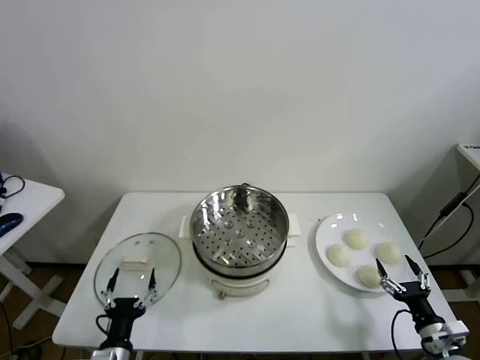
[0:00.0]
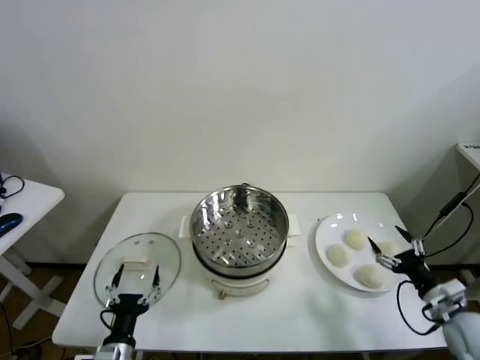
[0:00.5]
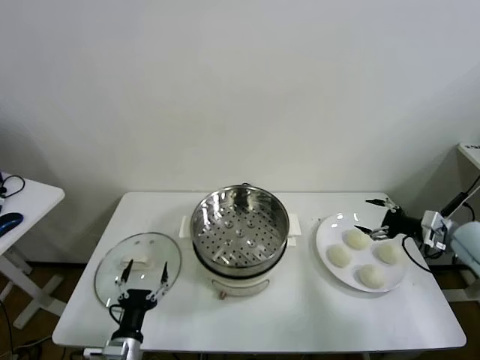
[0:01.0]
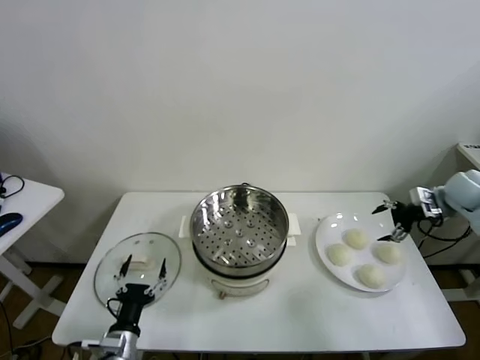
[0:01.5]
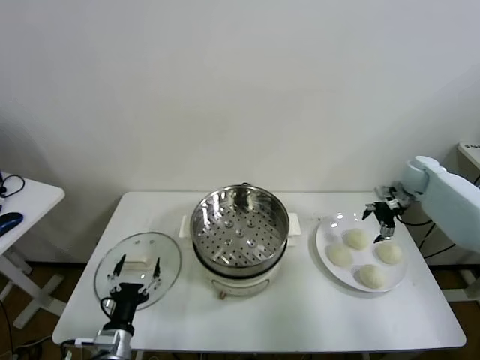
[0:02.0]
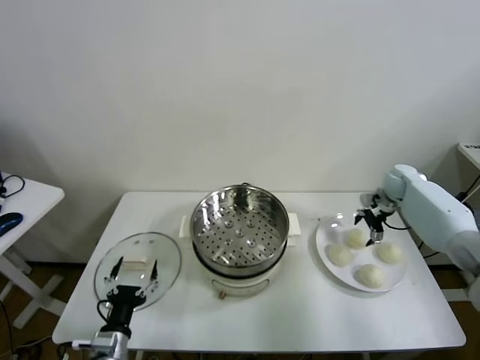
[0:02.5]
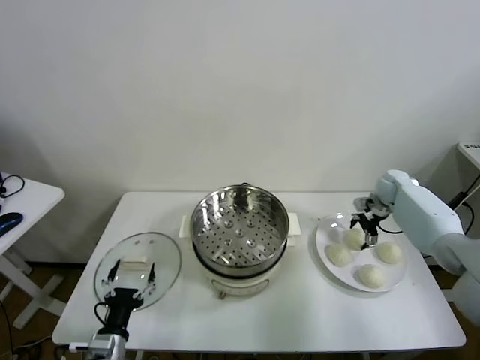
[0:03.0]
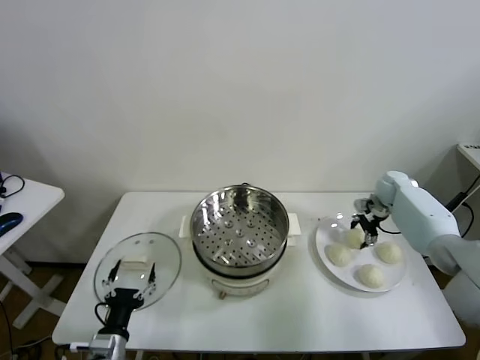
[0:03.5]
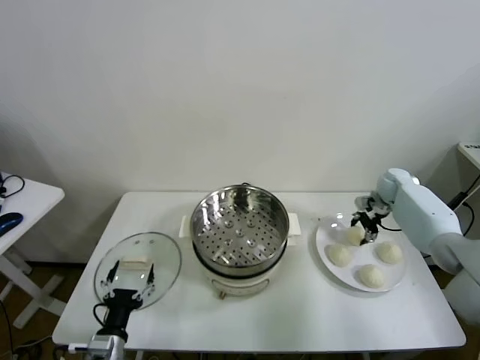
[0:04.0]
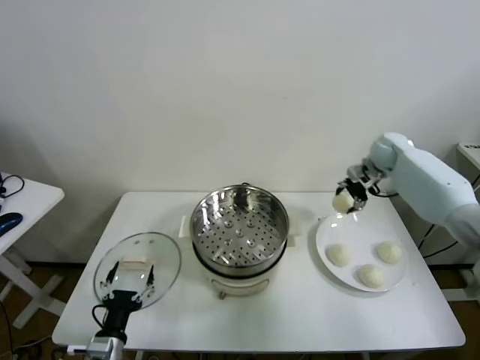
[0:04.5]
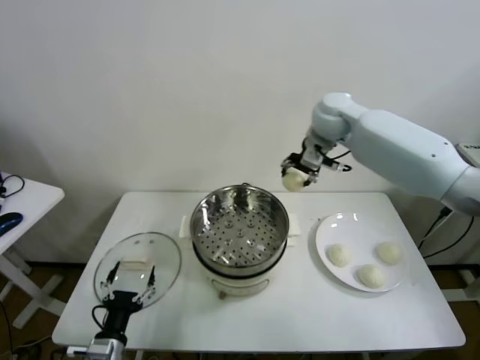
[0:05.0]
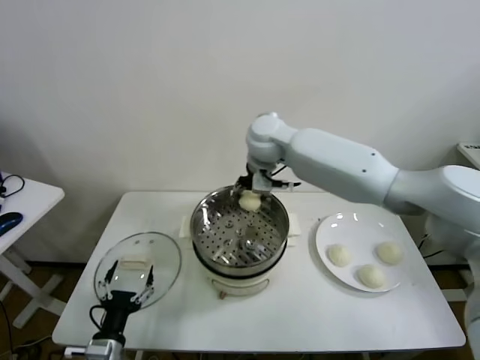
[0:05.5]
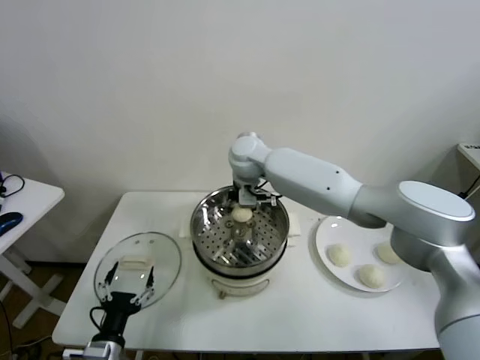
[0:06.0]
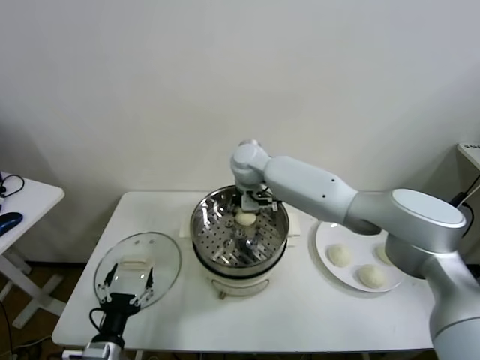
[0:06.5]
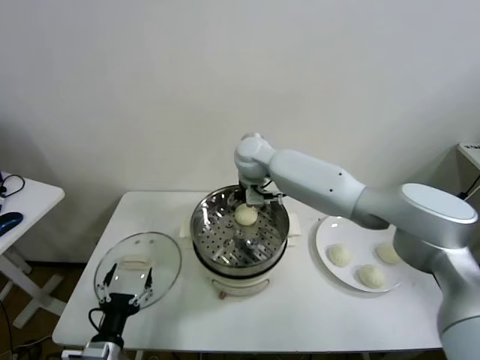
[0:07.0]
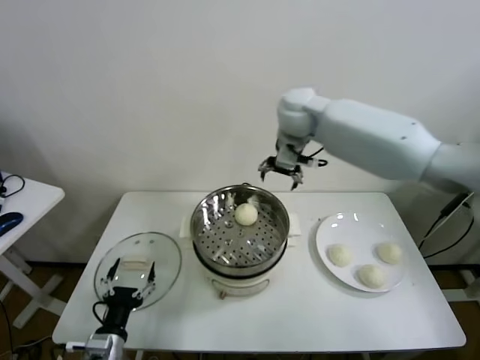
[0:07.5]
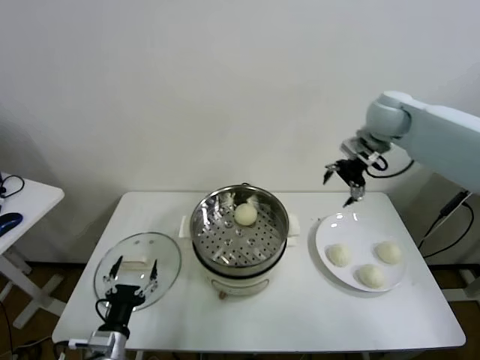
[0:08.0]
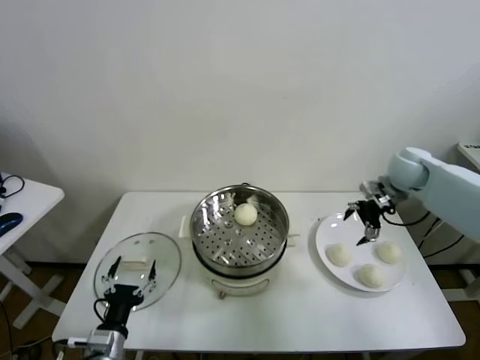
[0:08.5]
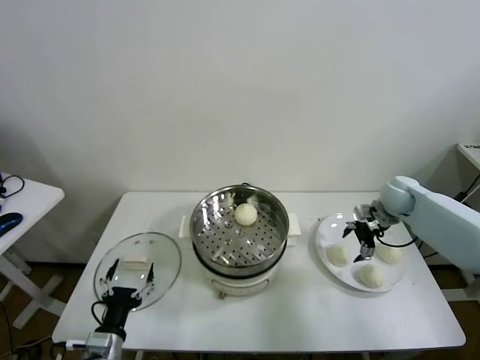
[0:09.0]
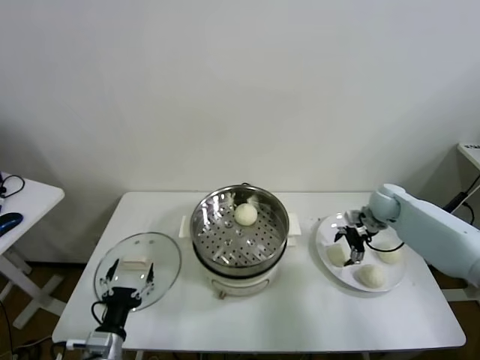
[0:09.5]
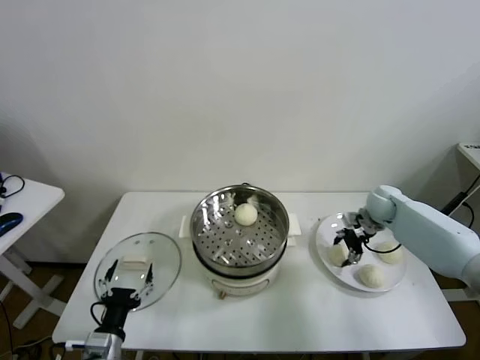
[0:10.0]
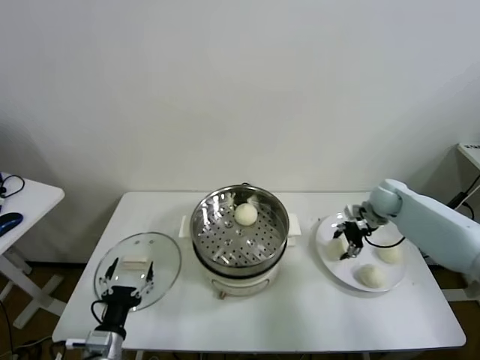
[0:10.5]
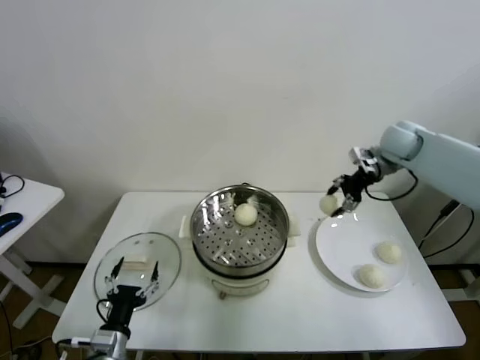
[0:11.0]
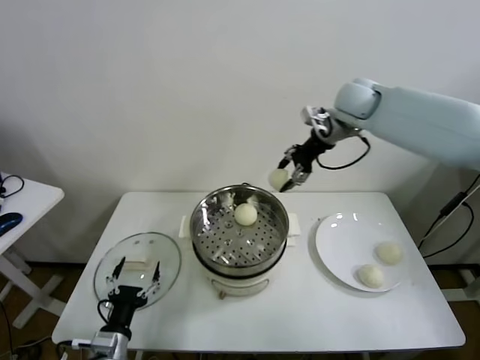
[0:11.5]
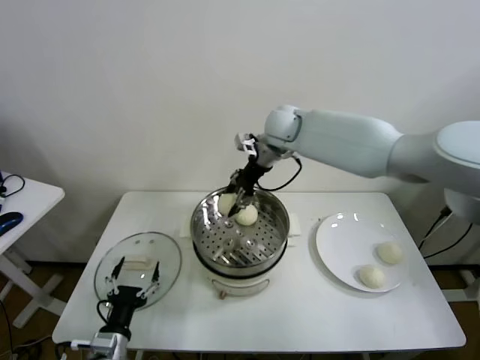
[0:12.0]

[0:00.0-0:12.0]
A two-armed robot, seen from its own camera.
Task of the whole recording: take steamed baozi put them in steamer.
Step, 0.0 to 3.0 s: Grasp the baozi in the plate with right gripper.
Step, 3.5 to 6.5 s: Place the baozi on the steamer with right gripper.
Step, 7.0 to 9.5 s: Grasp the baozi in the plate with right gripper.
2.0 to 4.0 s: The right gripper heads downward, covering approximately 5 cm, and closes its fingers.
4.0 to 6.0 s: The right gripper moves to the left, approximately 40 cm.
6.0 to 8.0 s: The right gripper shifts about 30 cm to the right, and opens up.
8.0 to 10.0 s: The right gripper shifts about 25 cm downward, and closes up.
10.0 to 12.0 s: The right gripper is displaced to the left and upward by roughly 35 cm.

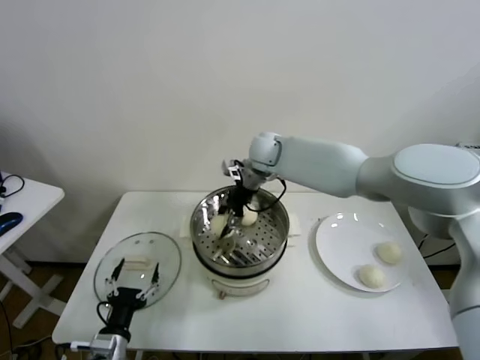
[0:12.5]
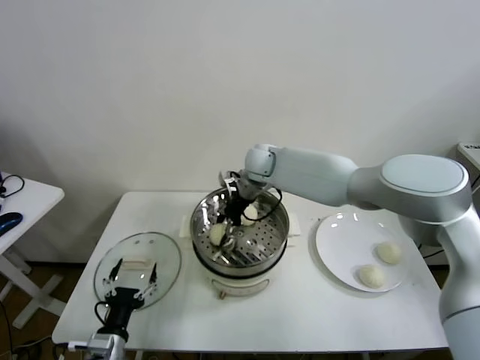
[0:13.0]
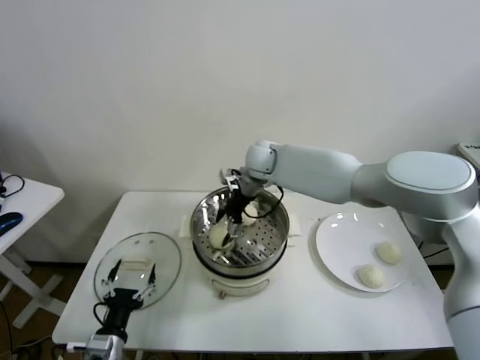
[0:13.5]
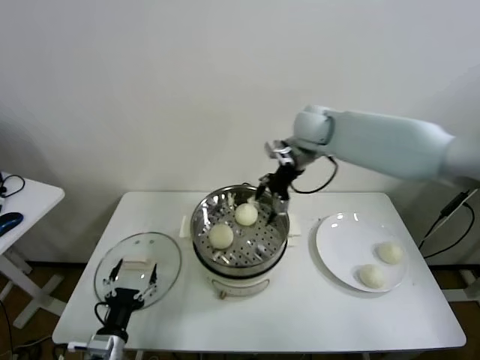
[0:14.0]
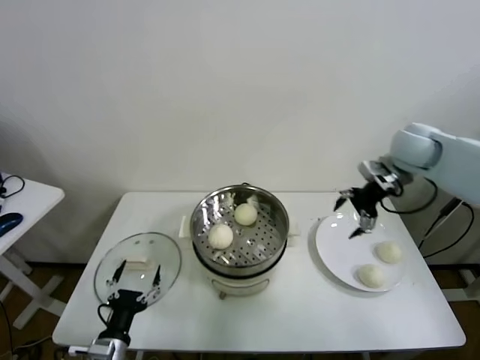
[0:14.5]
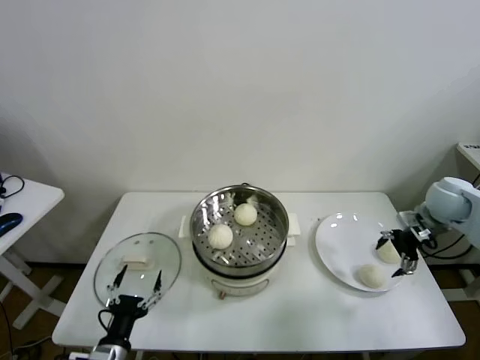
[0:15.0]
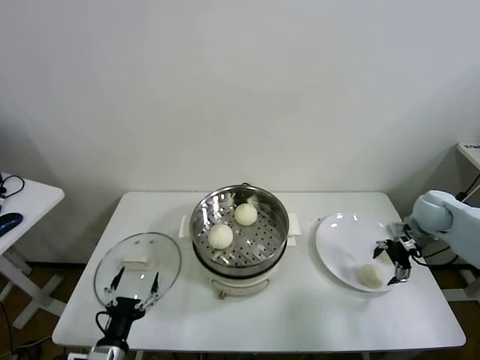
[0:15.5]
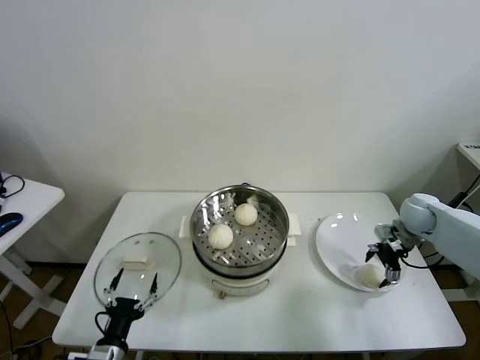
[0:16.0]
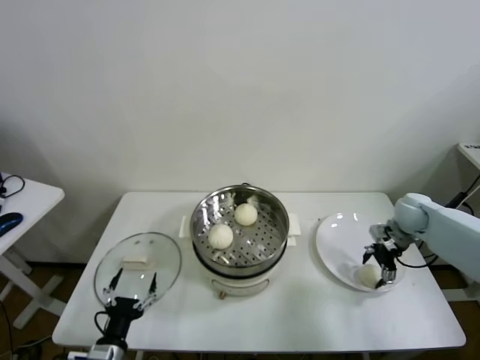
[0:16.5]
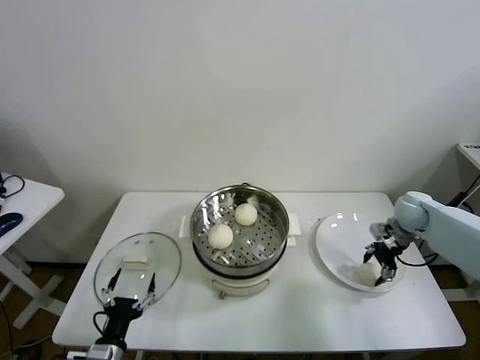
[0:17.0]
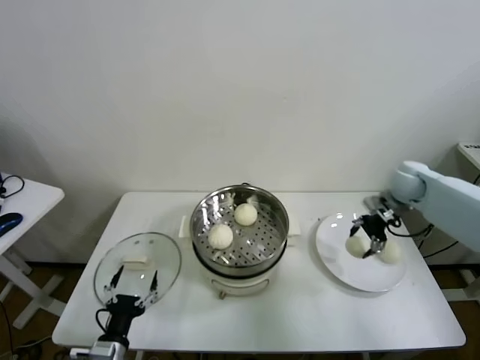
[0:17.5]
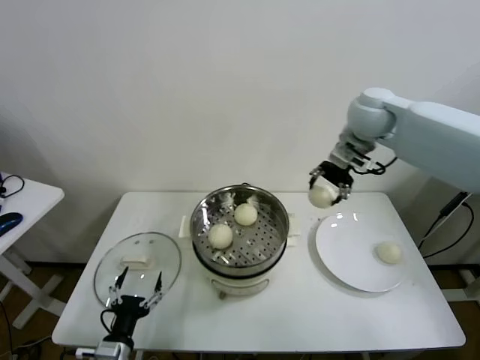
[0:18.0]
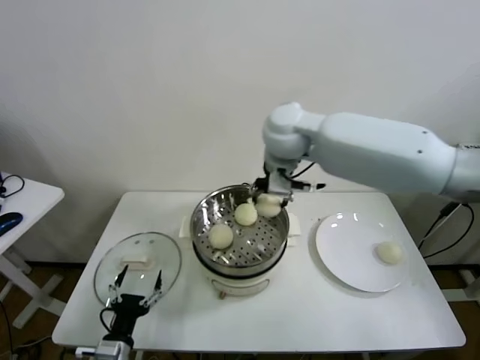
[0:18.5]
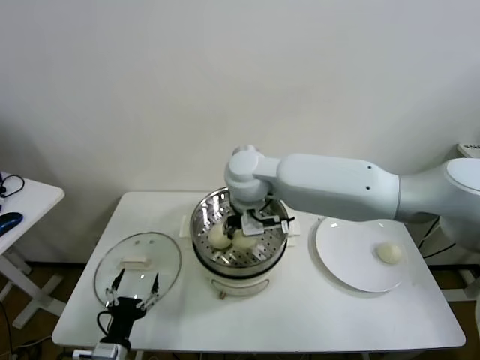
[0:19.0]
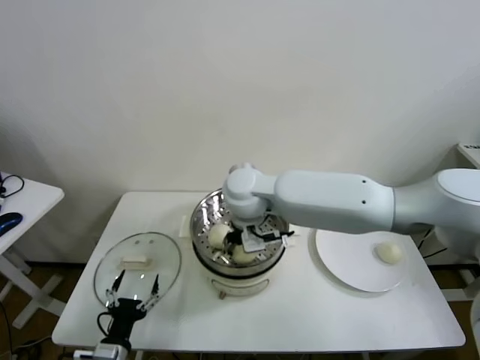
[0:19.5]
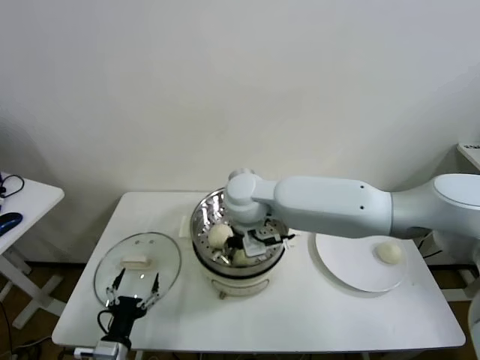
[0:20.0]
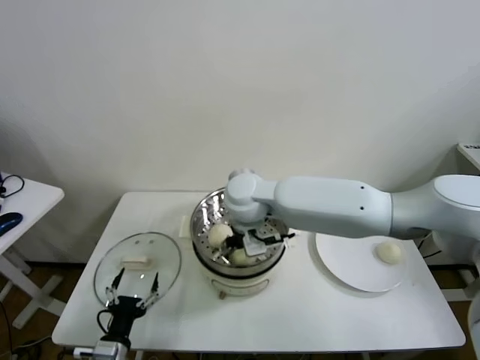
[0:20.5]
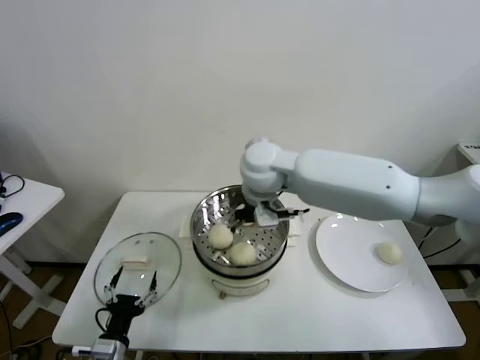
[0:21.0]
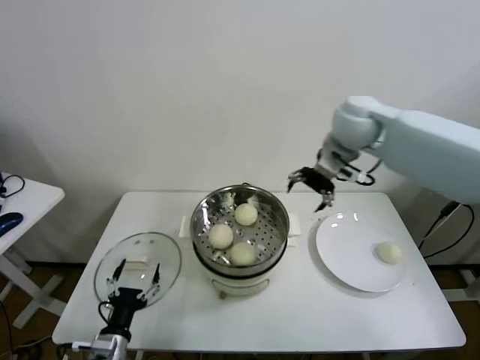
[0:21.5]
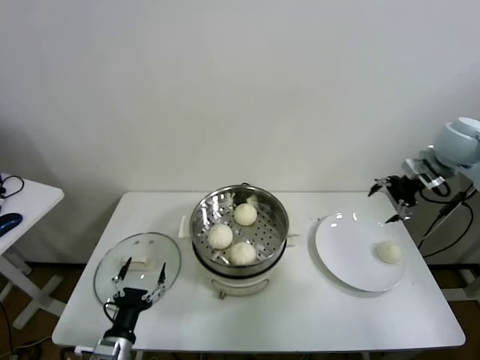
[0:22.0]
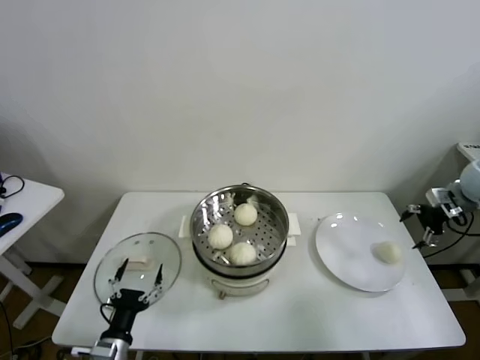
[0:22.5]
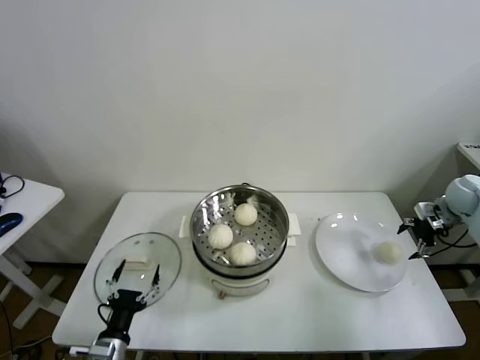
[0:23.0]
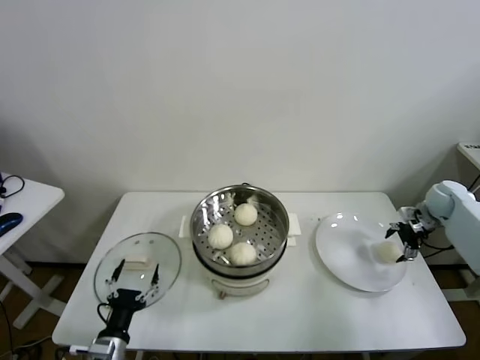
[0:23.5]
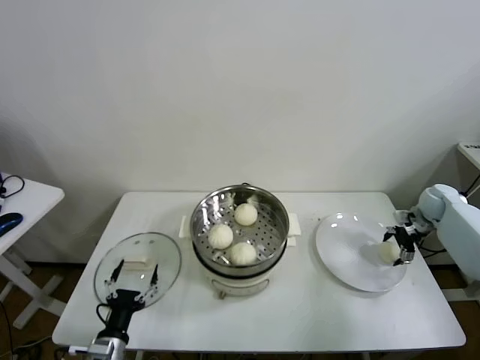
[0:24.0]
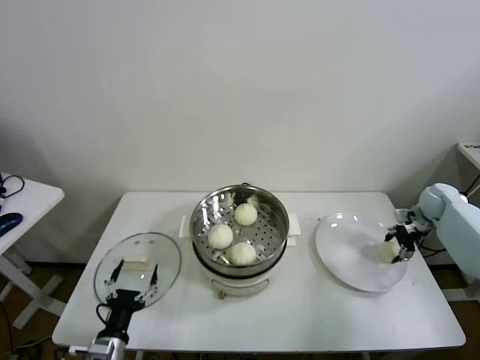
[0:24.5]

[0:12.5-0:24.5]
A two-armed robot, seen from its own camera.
Task of the whole recording: take steamed baozi put them in steamer.
Step, 13.5 to 16.5 s: Grasp the baozi in the plate with right gripper.
Step, 17.0 to 20.5 s: Place the baozi on the steamer with right gripper.
Step, 21.0 to 24.0 s: Grasp the baozi in the plate with right gripper.
12.5 to 14.5 s: The right gripper heads to the right, covering roughly 30 cm, and opens its fingers.
14.5 to 16.5 s: The right gripper moves downward, roughly 20 cm.
16.5 to 18.5 s: The right gripper is displaced to the left and upward by about 40 cm, and closes up.
18.5 to 20.5 s: The right gripper is displaced downward, to the left and backward by about 15 cm, and opens up.
20.5 to 22.5 s: The right gripper goes some 50 cm to the right.
22.5 to 24.5 s: The right gripper moves downward, about 15 cm, and closes.

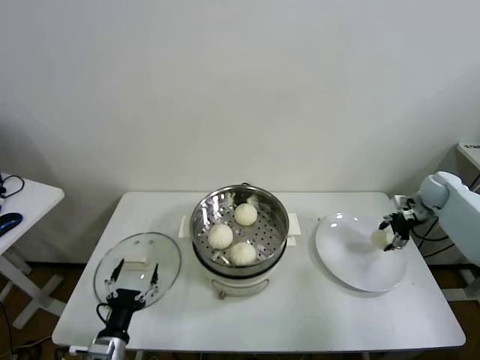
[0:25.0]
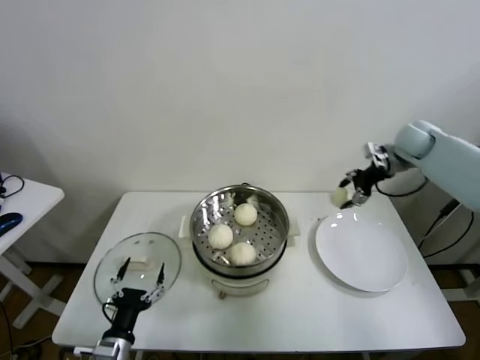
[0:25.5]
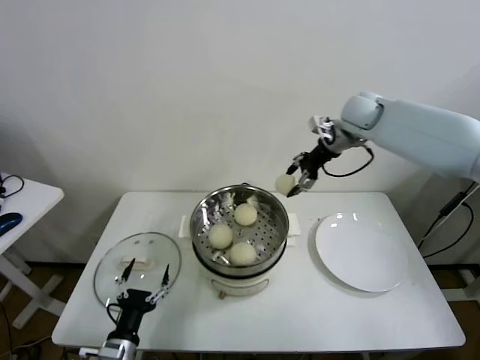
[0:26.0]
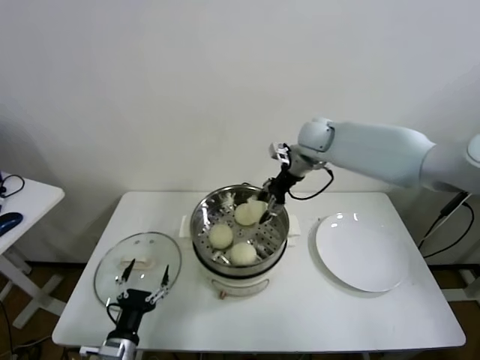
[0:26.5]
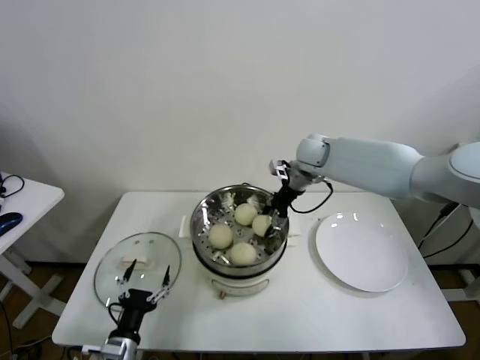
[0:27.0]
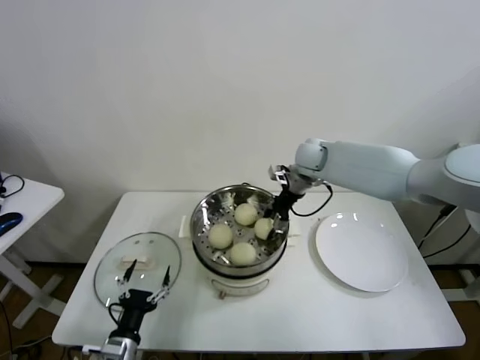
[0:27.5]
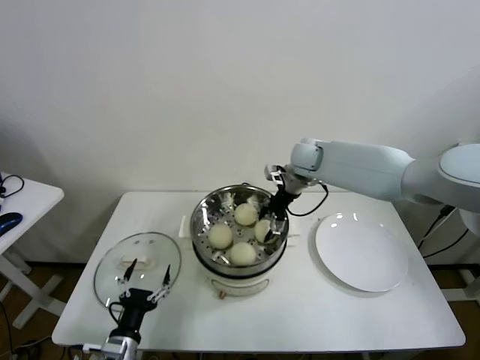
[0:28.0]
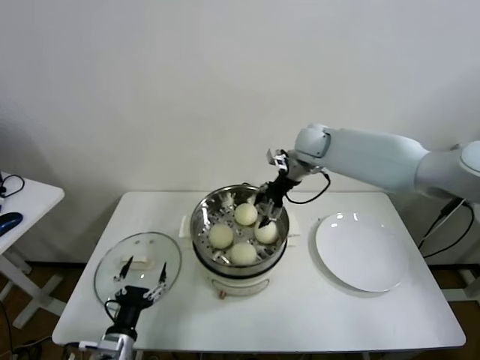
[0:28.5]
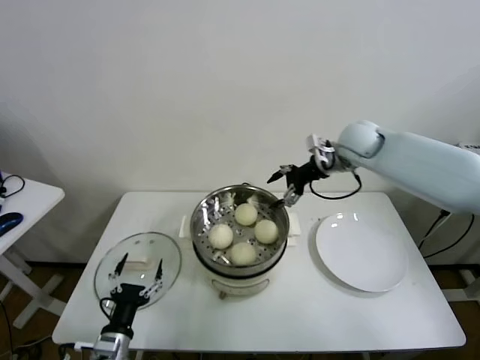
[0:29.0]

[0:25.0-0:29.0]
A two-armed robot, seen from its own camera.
Task of the whole recording: take steamed baozi put them in steamer.
Step, 25.0 to 27.5 s: Place the baozi on the steamer with right gripper.
25.0 to 27.0 s: The right gripper is displaced to the left by roughly 35 cm.
27.0 to 29.0 s: The right gripper is displaced to the right and upward by approximately 10 cm, and opens.
